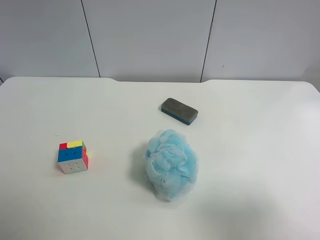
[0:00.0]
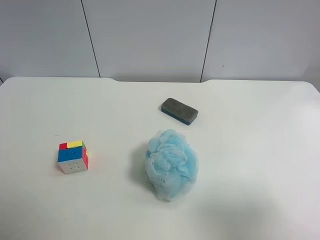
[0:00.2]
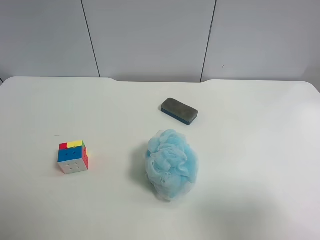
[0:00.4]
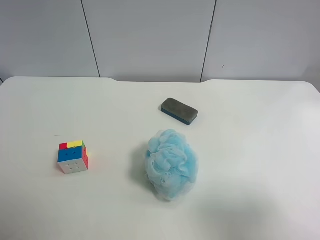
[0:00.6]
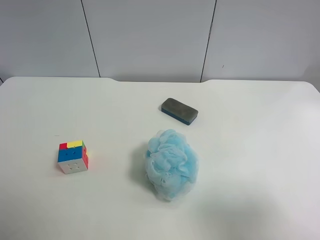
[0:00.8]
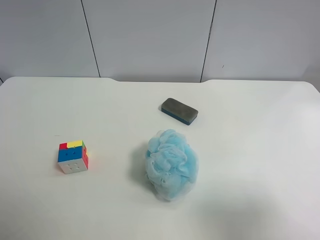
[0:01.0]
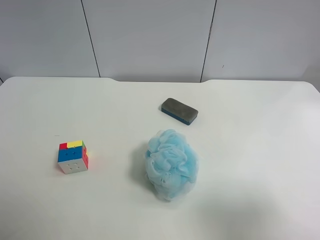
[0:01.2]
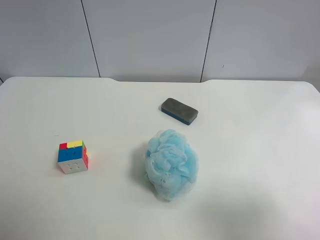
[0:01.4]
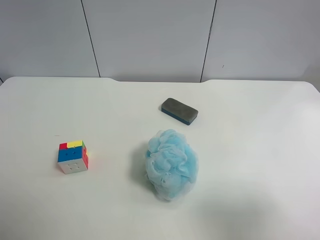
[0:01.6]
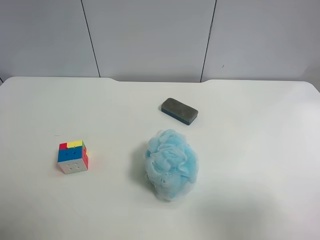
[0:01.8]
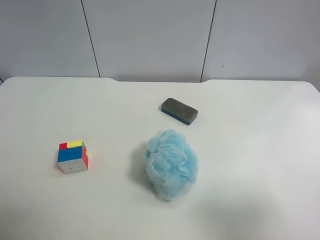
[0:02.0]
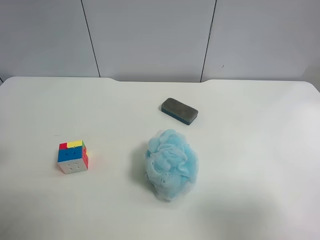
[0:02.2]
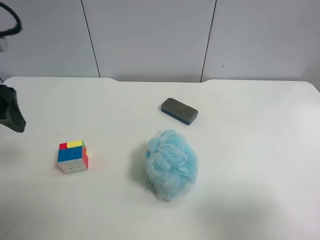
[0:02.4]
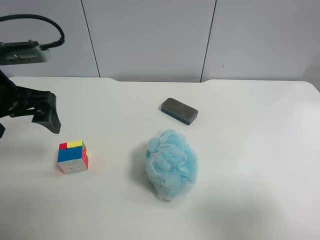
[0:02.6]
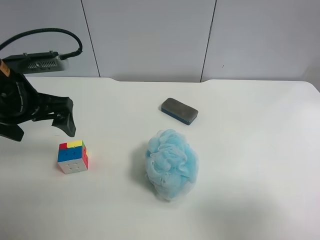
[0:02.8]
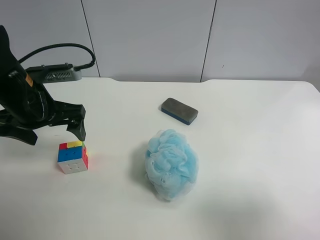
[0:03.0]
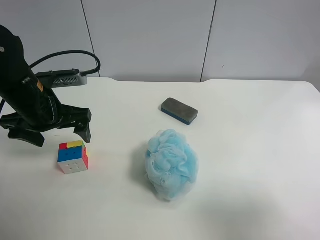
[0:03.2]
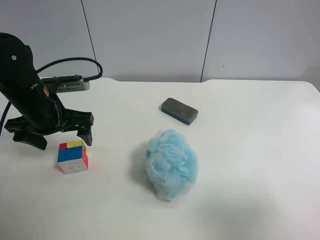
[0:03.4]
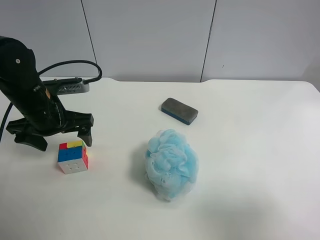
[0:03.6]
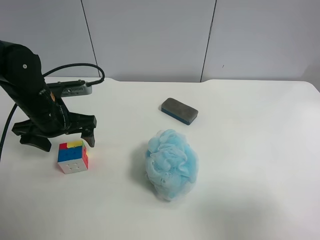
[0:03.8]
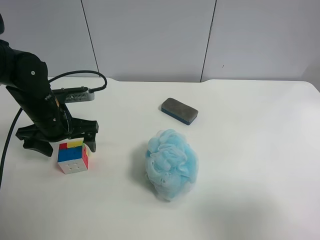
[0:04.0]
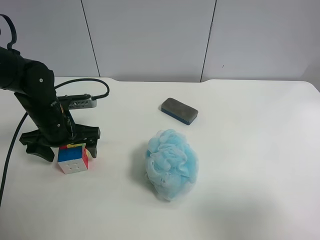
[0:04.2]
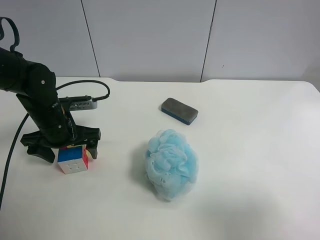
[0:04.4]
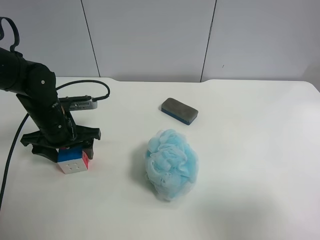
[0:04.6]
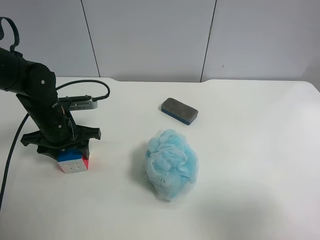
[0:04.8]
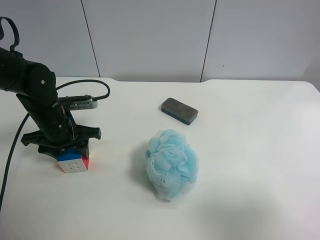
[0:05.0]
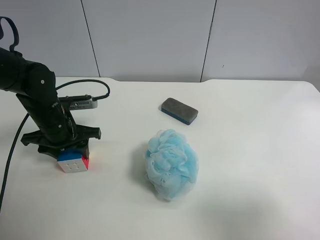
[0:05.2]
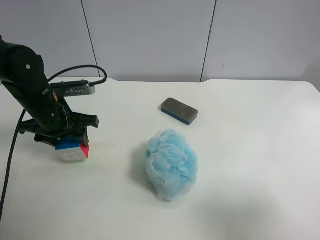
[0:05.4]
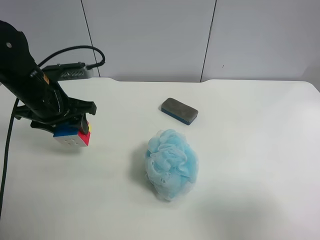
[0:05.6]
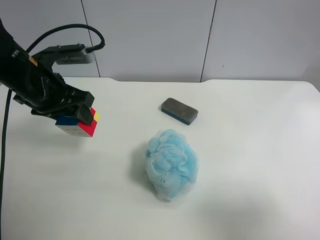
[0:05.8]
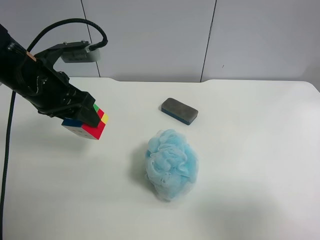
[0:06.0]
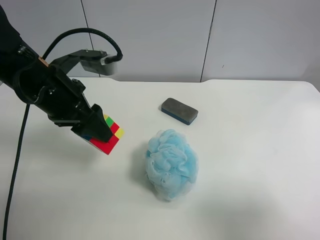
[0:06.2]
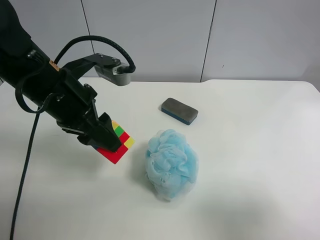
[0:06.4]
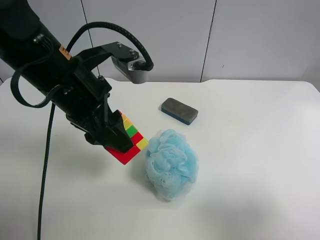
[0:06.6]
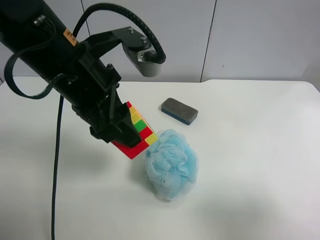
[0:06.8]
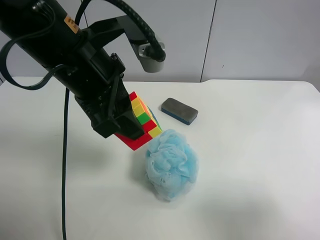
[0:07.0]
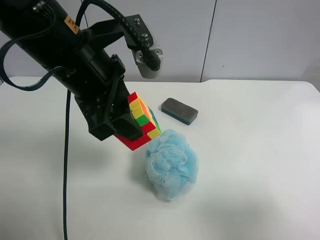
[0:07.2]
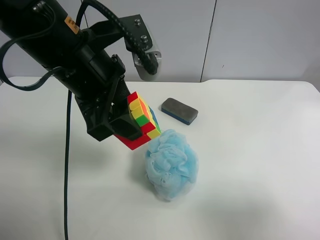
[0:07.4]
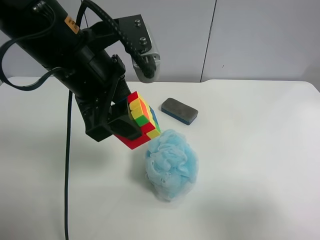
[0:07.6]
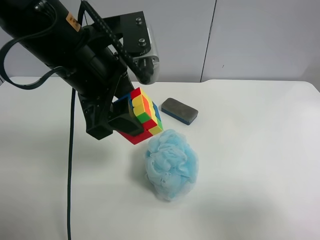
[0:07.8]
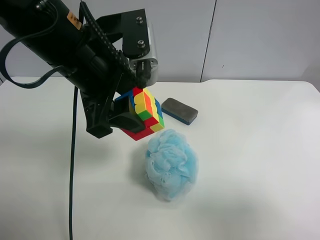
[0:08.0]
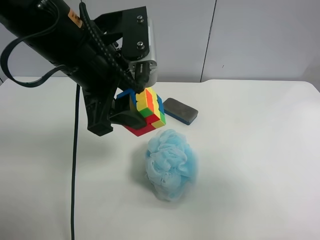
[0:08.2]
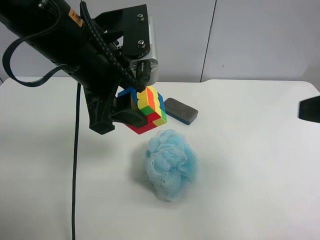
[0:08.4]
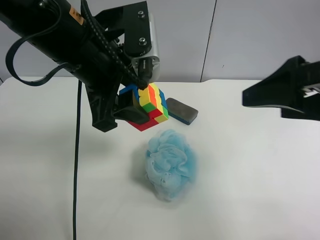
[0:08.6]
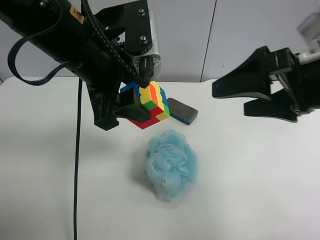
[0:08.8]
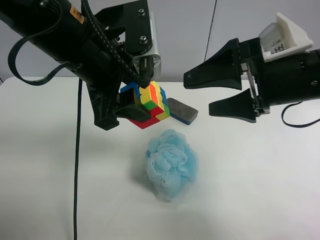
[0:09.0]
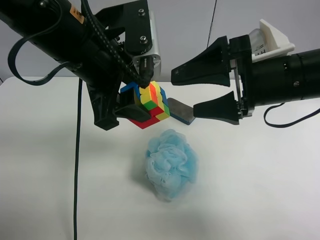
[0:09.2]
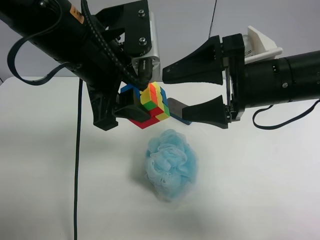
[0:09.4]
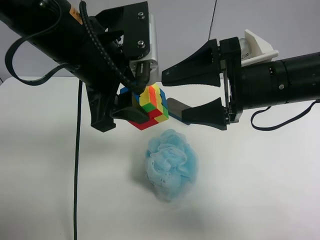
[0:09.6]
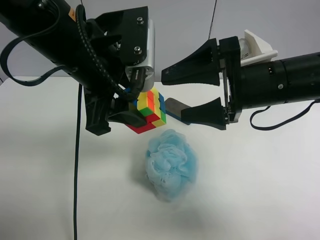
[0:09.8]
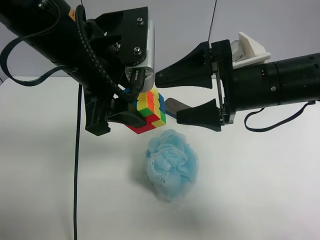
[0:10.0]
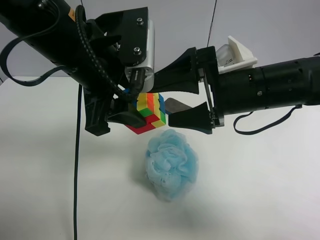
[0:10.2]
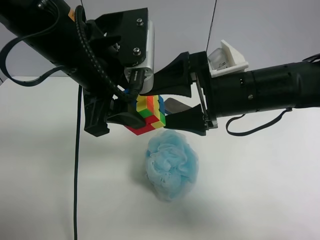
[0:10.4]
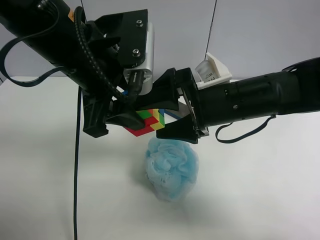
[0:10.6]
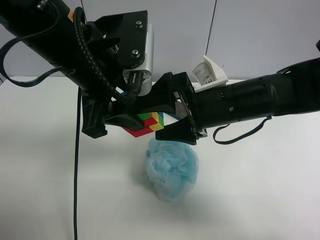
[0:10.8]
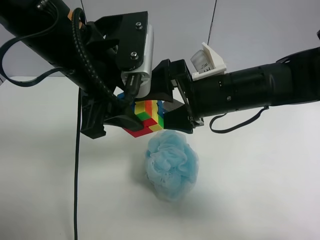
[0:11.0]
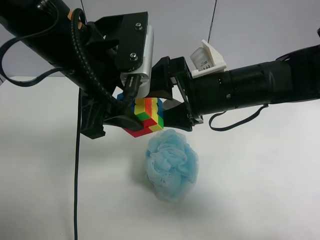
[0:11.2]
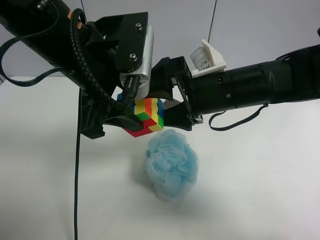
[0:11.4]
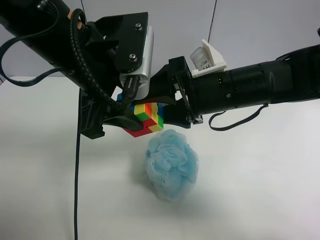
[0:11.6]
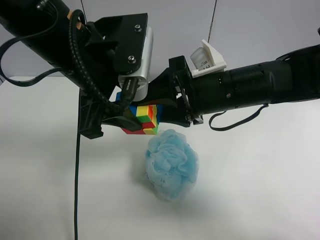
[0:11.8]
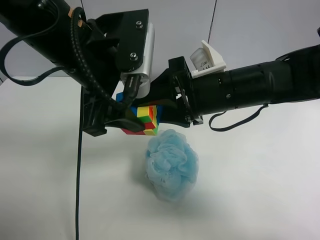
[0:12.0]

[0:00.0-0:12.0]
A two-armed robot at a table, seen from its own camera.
Task of the whole recording: use the left gripper to pick up the item and transfer it from the left gripper to the right gripper.
0:01.6 to 0:03.0: The left gripper goes about 25 cm forward, to the right and downward.
0:03.0 to 0:04.4: The left gripper shifts about 10 cm downward.
0:04.4 to 0:06.0: The left gripper travels upward by roughly 10 cm, and closes up.
0:06.0 to 0:07.6: The left gripper shifts about 10 cm to the right and upward.
0:07.6 to 0:09.0: The right gripper is displaced forward and to the left by approximately 25 cm.
0:09.0 to 0:10.4: The right gripper goes about 5 cm to the left.
0:10.4 to 0:12.0: The right gripper closes up. The left gripper opens its fingers.

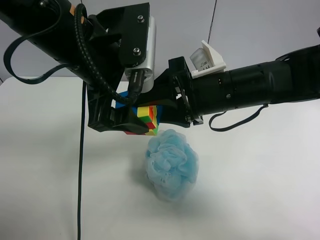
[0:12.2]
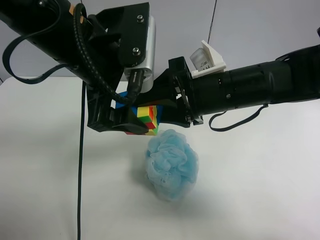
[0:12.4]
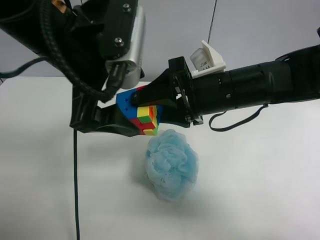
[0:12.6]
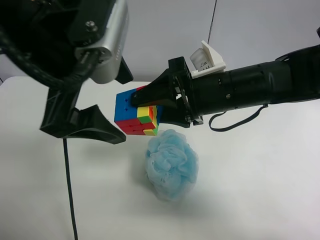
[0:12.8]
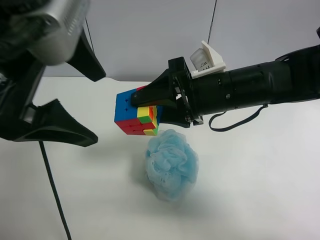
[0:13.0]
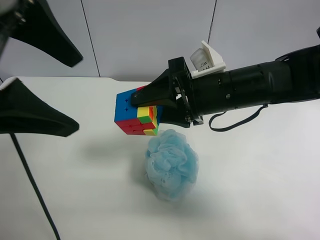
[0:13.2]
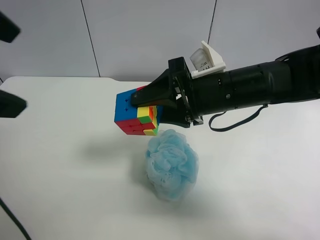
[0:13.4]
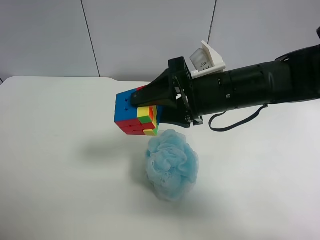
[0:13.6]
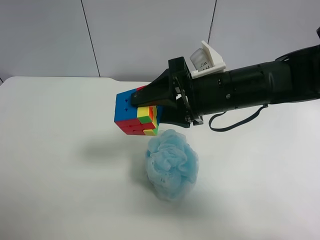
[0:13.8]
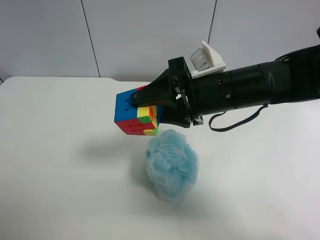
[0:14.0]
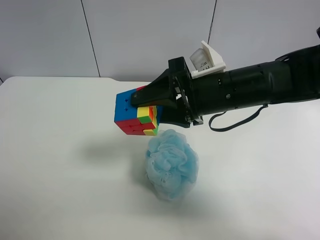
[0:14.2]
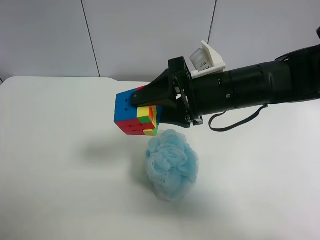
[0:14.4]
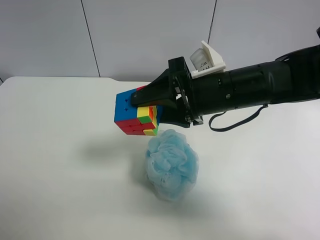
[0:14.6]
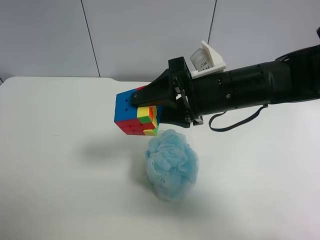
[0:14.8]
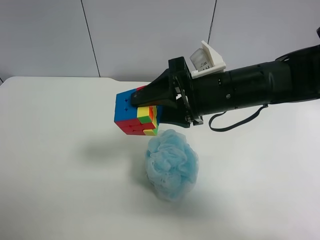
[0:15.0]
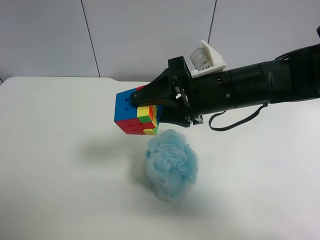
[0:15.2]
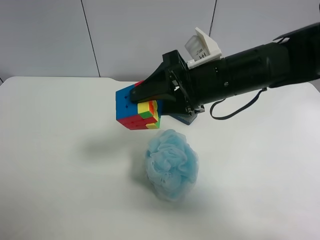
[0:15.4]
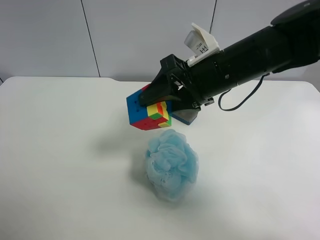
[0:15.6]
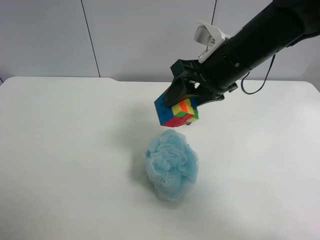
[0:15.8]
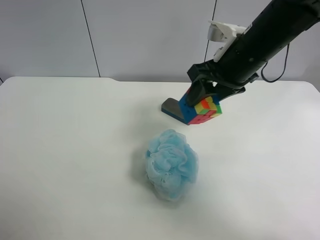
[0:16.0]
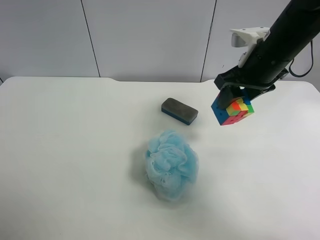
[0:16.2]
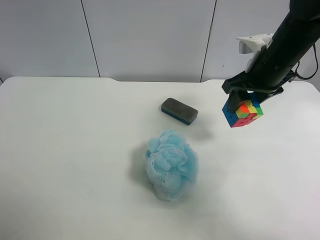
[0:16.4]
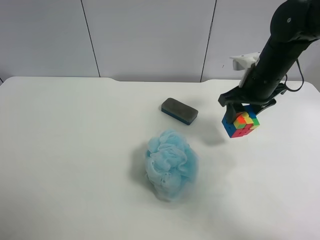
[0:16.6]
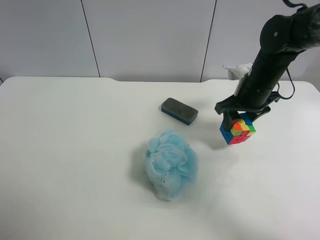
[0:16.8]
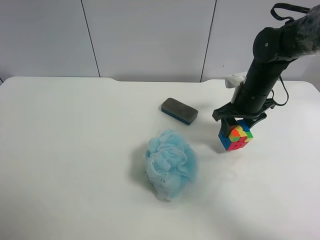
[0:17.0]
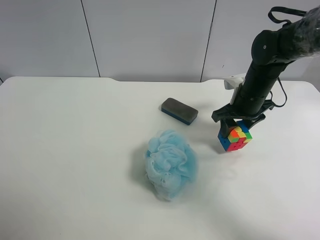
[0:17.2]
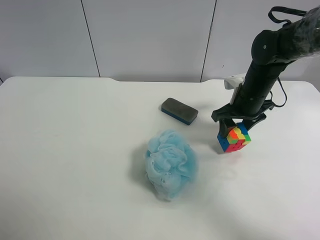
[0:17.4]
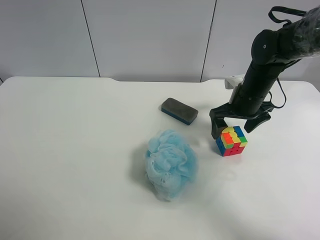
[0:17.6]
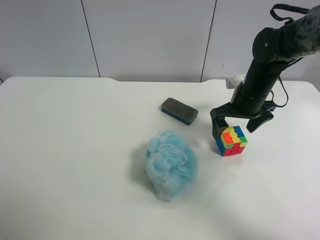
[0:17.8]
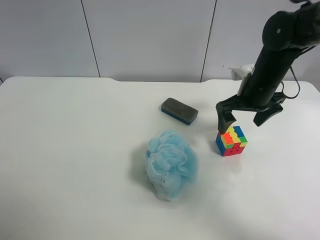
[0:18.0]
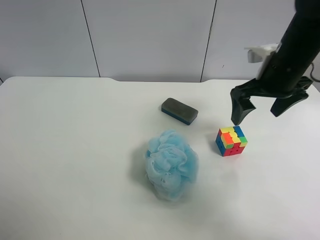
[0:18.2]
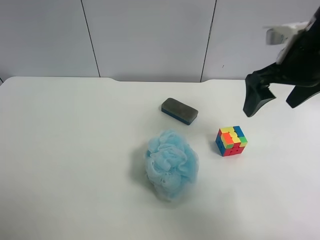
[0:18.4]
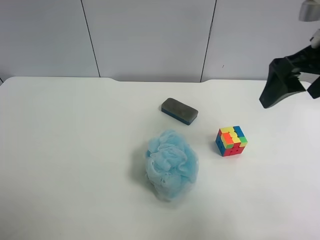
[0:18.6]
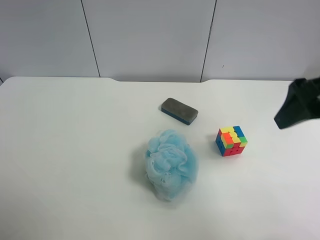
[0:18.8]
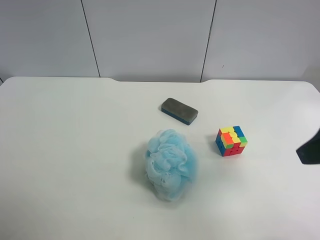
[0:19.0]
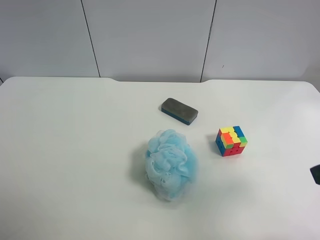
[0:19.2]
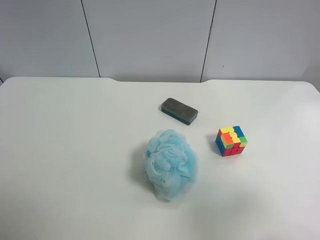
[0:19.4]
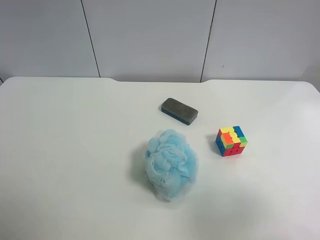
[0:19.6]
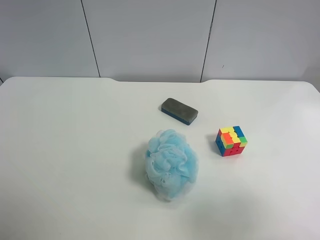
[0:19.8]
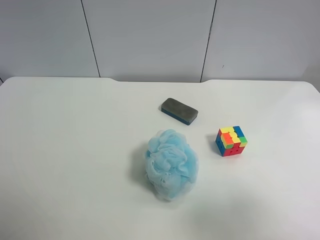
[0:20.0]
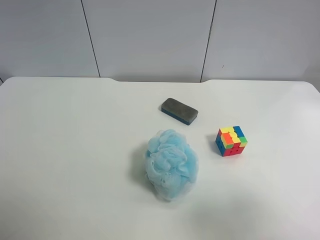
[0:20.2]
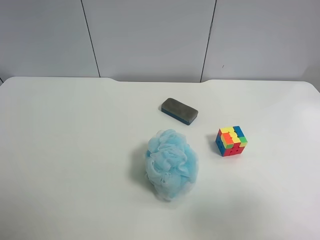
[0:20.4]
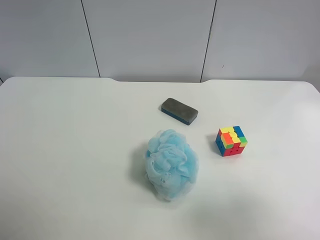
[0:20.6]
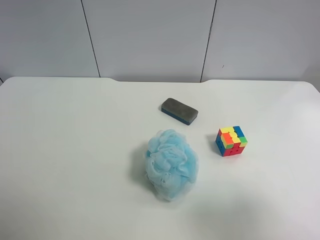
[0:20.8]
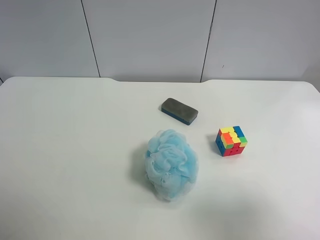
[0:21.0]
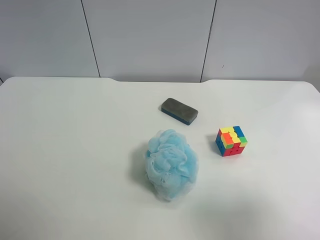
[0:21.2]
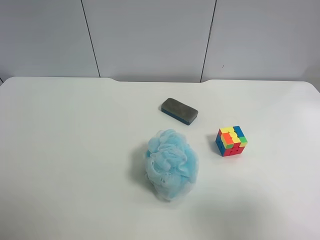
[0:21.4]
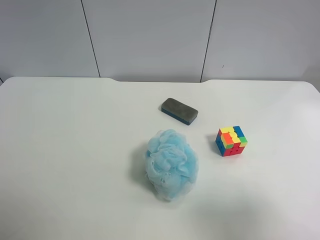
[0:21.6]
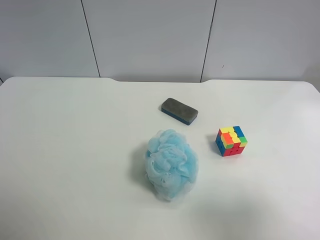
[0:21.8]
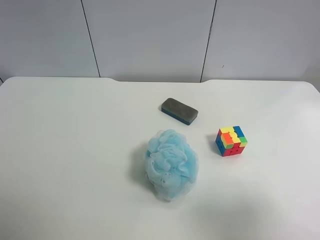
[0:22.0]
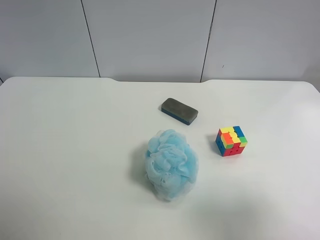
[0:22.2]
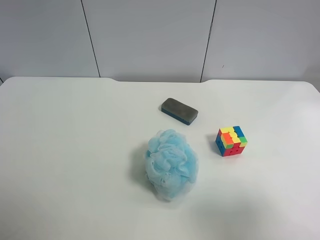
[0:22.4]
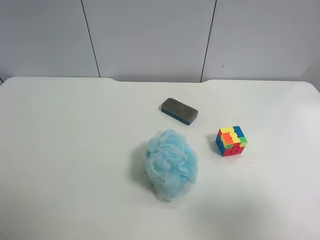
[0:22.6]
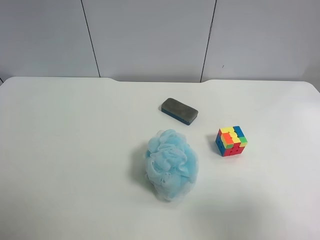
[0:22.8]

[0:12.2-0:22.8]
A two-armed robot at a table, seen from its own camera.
Task of the whole recording: use the left gripper to pick up the item and transfer it from the left gripper to the right gripper.
0:12.2 to 0:13.8: The left gripper is displaced to the left and backward by about 30 cm.
0:15.2 to 0:16.8: The right gripper travels to the right, forward and downward by approximately 15 cm.
0:16.8 to 0:18.2: The right gripper travels upward by about 5 cm, and opens its fingers.
0:18.2 to 0:19.8: The right gripper is displaced backward by about 30 cm.
0:21.2 to 0:22.8: Neither gripper changes place.
